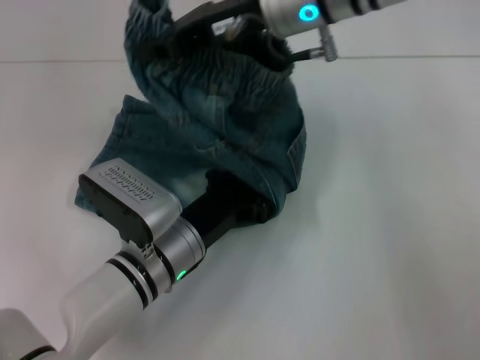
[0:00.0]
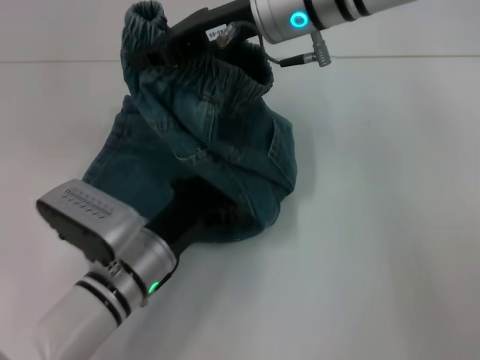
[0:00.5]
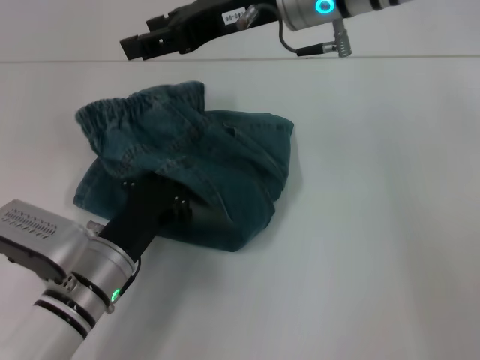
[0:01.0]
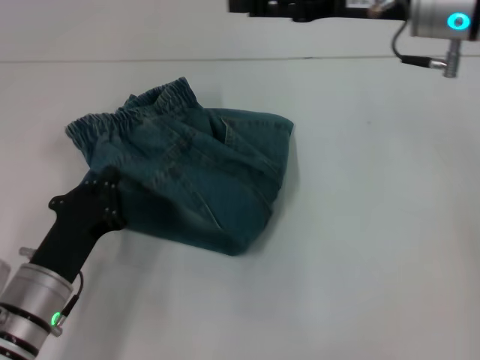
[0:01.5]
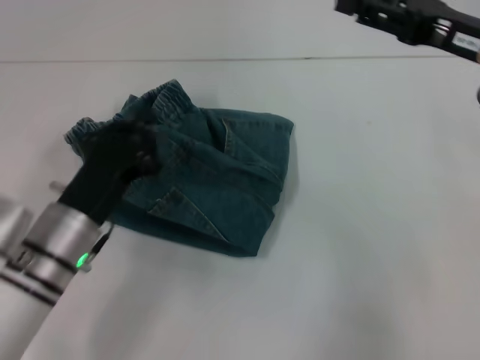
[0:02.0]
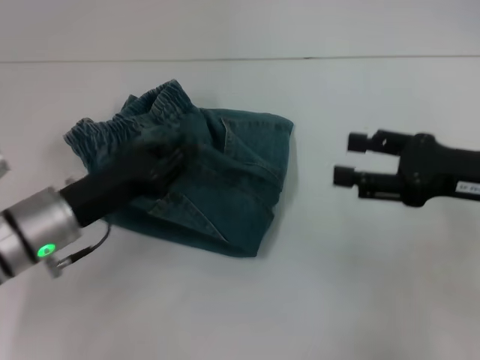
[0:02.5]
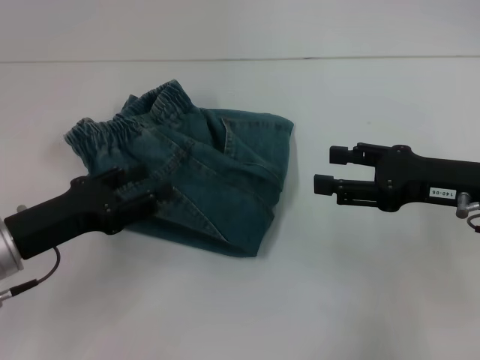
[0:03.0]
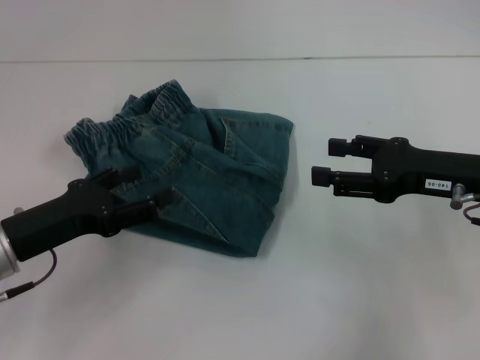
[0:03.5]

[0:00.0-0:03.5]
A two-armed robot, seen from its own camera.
Step, 0:00.5 to 0:01.5: Fold to the left with your right hand.
0:00.0 to 0:02.0: The left gripper is displaced to the left by about 10 cm. Meanwhile the right gripper shifts about 20 cm to the right, and opens its fingers.
0:02.0 to 0:03.5: The right gripper moves downward, roughly 5 cm; the left gripper travels to the left by some 10 cm, and opens up.
